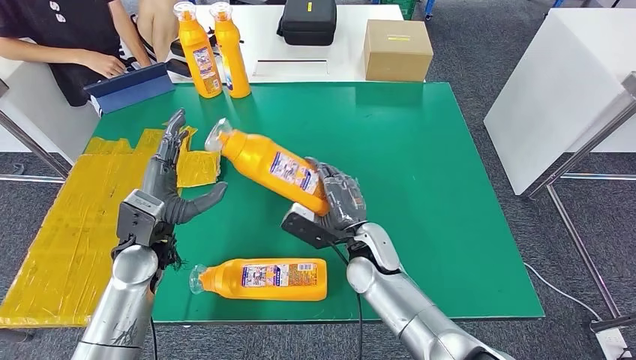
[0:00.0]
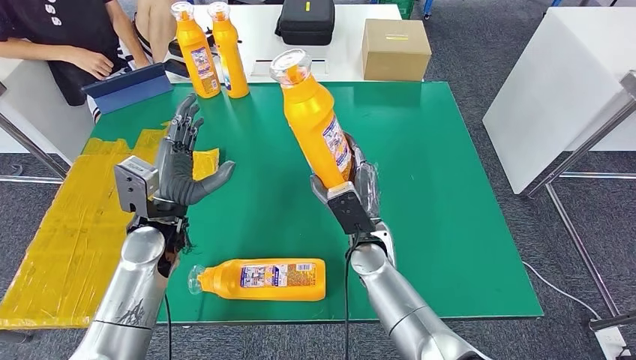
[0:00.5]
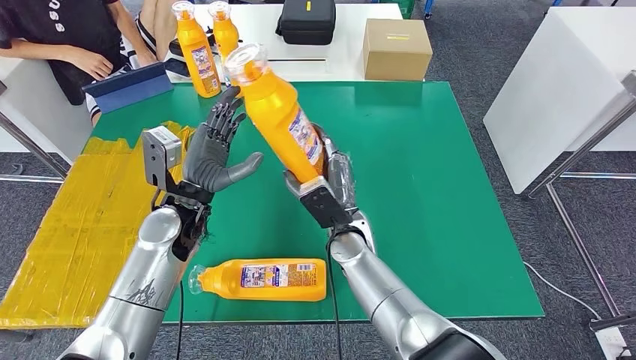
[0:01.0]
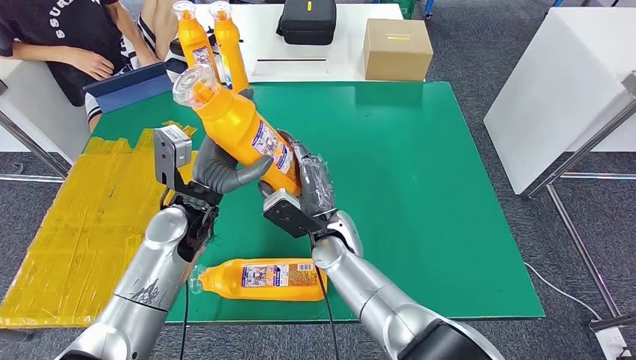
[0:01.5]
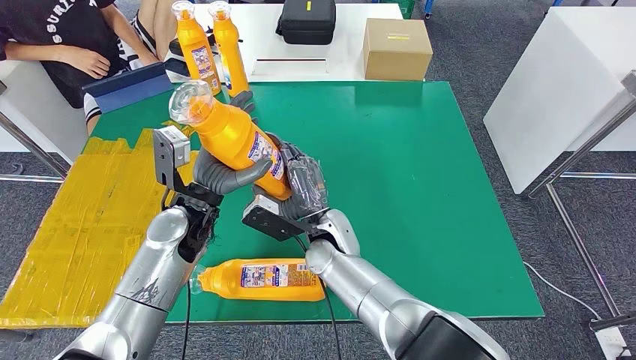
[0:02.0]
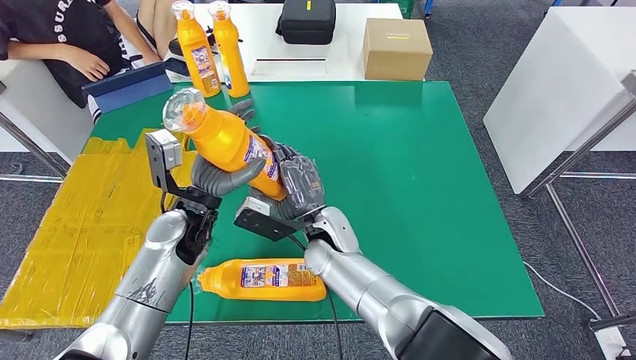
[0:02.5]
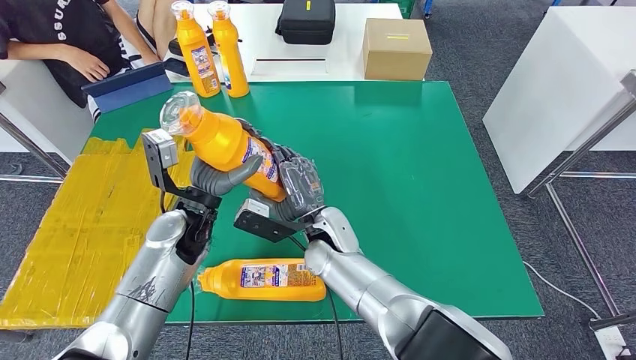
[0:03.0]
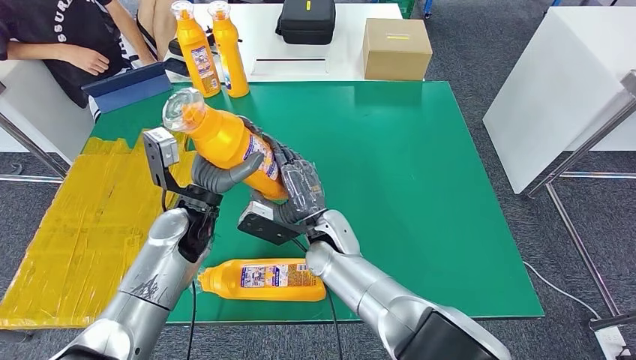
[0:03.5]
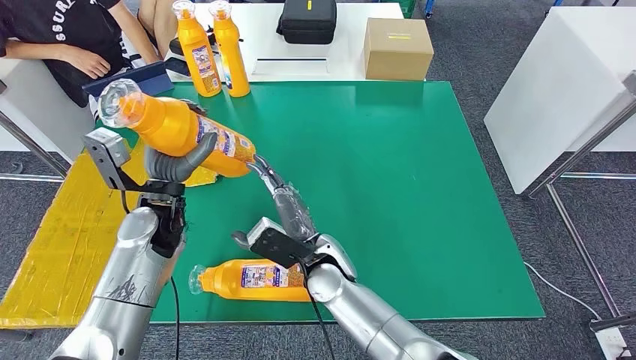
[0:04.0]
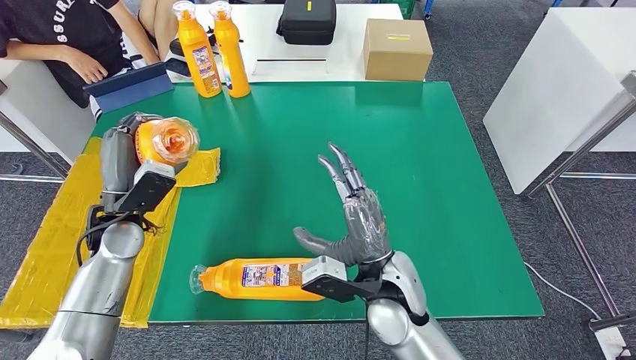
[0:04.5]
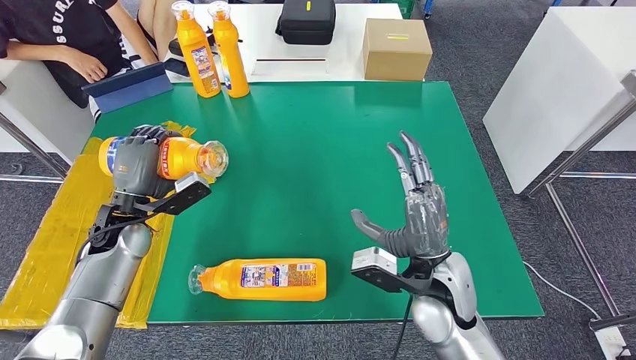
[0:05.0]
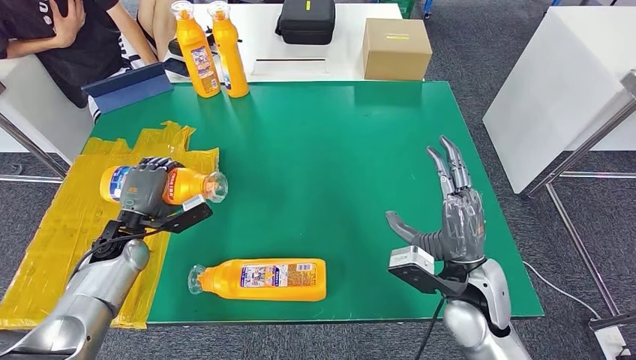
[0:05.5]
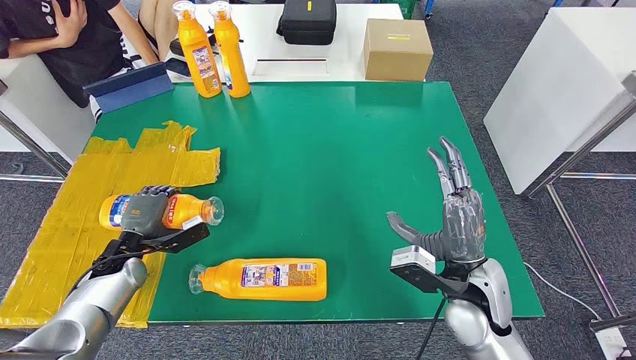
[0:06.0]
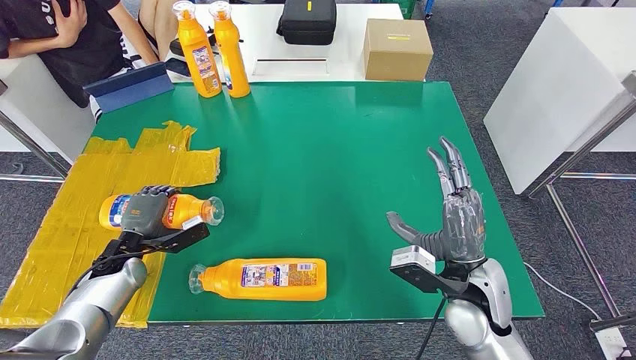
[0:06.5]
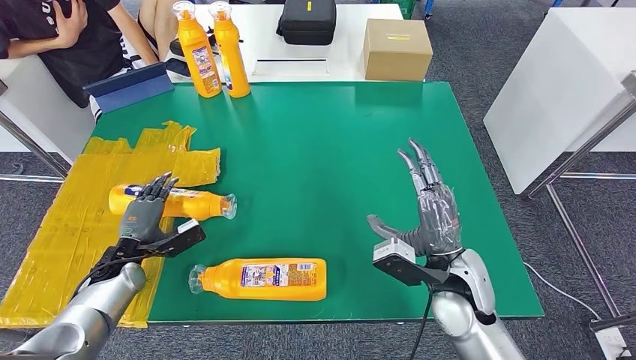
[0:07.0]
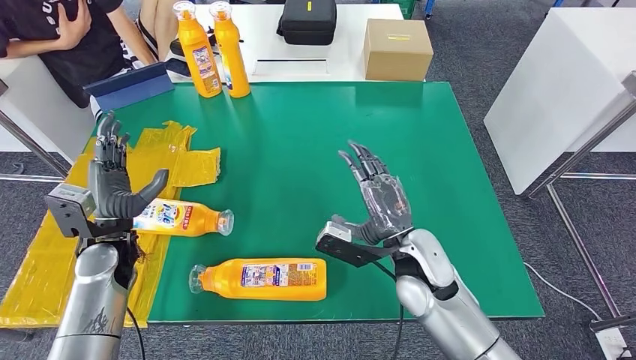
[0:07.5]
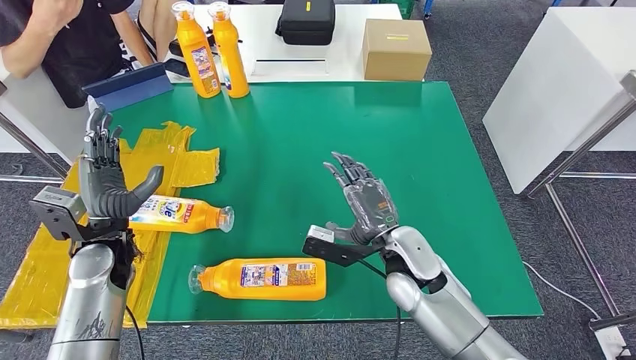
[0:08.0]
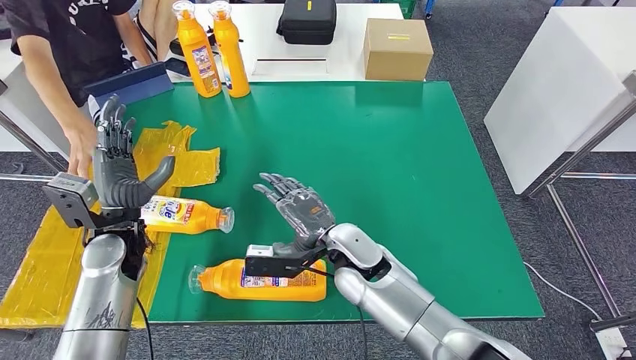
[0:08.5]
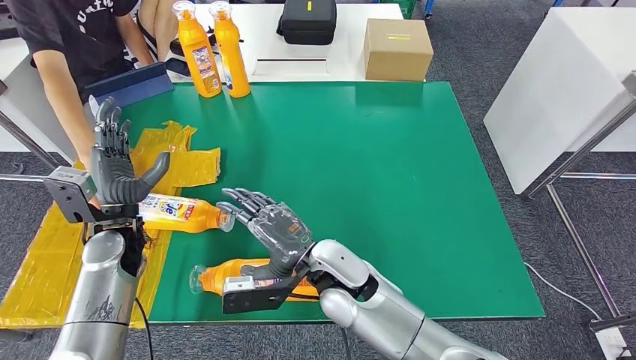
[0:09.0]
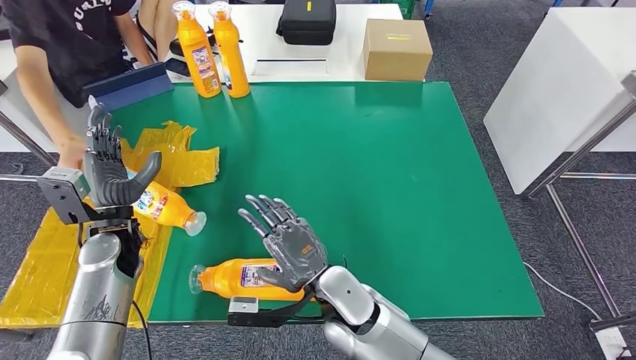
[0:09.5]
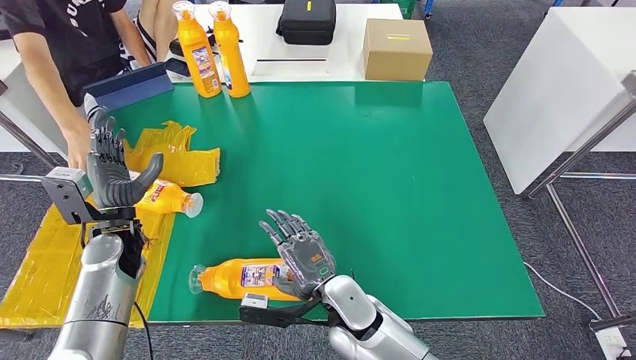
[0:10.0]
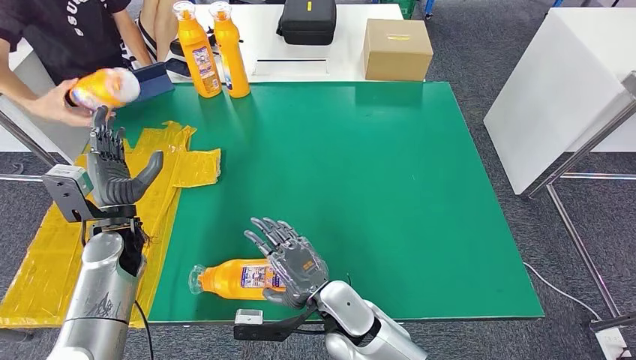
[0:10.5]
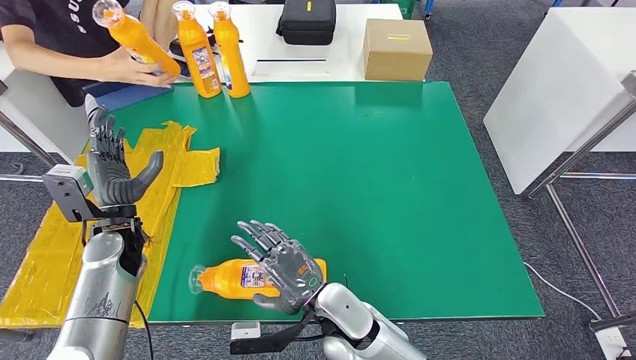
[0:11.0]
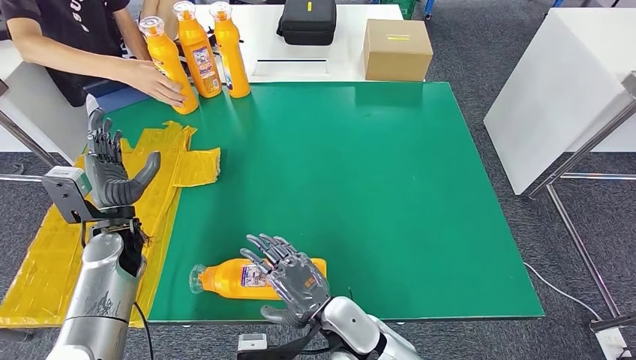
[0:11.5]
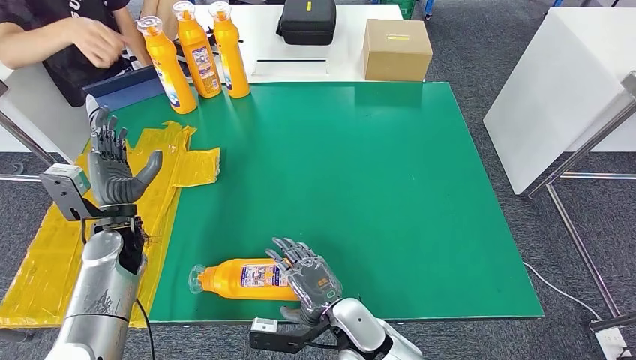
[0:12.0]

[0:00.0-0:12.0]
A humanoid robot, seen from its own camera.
Step, 0:00.0 to 0:02.5: Pick up the bottle from the table.
Step, 0:03.0 to 0:08.0: Flip the bottle to face forward.
0:10.0 to 0:12.0: The hands stay close to where they were, moving slightly.

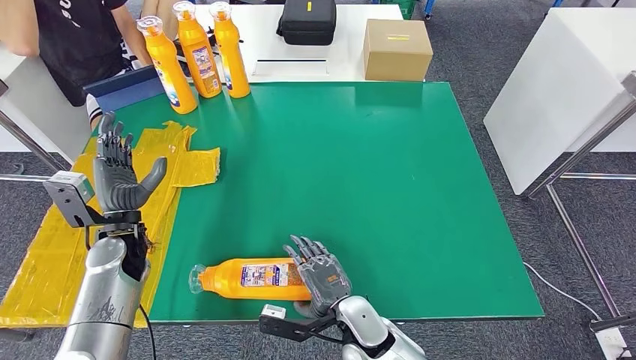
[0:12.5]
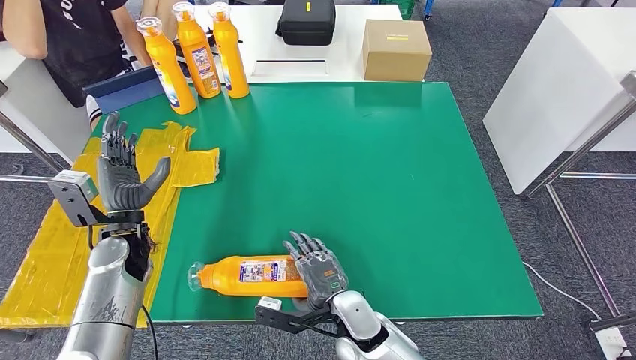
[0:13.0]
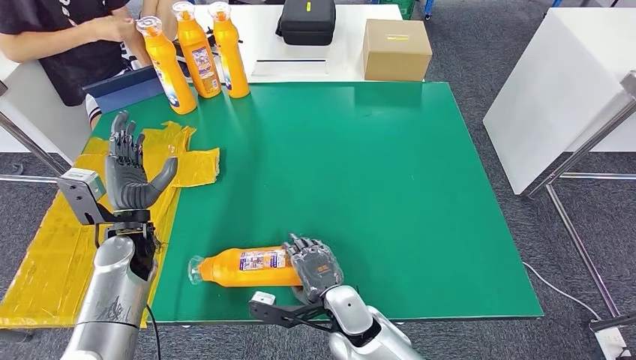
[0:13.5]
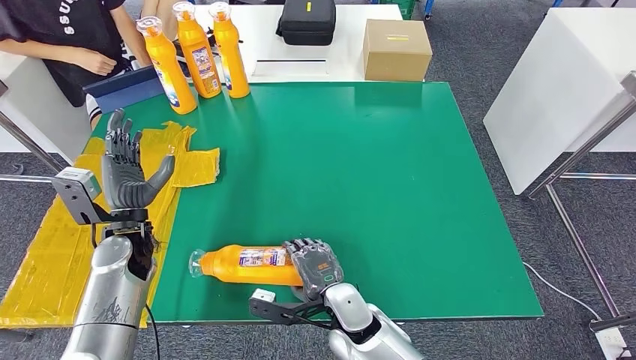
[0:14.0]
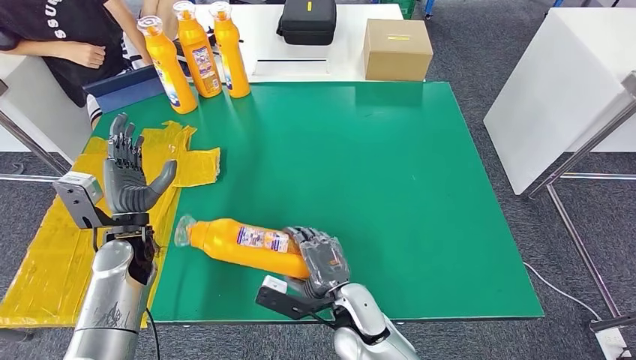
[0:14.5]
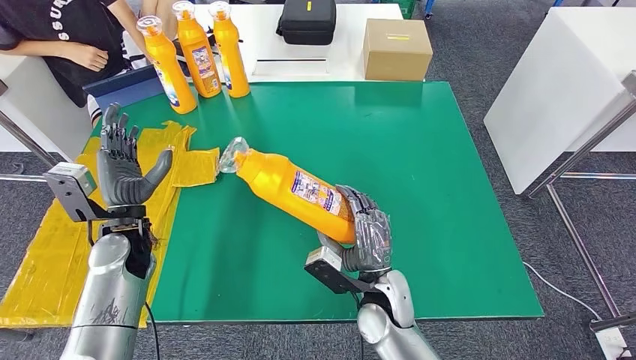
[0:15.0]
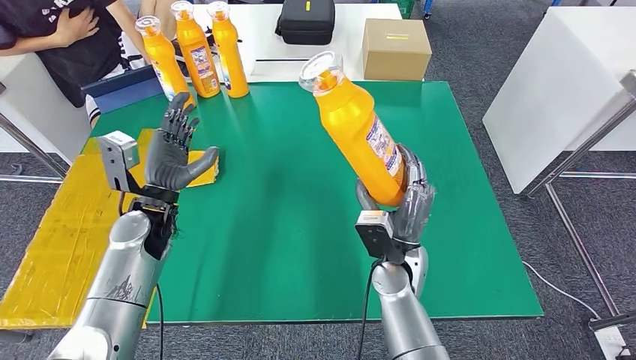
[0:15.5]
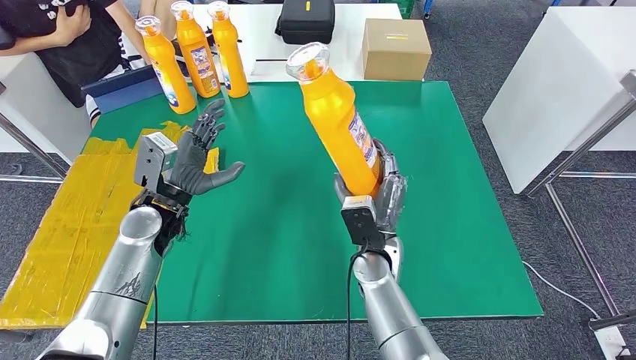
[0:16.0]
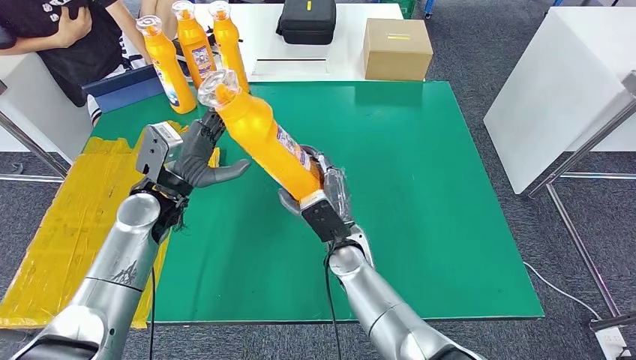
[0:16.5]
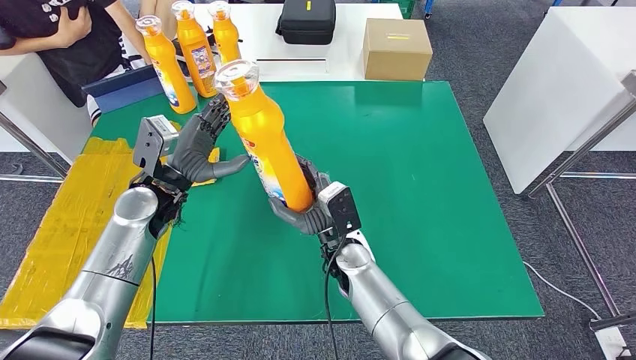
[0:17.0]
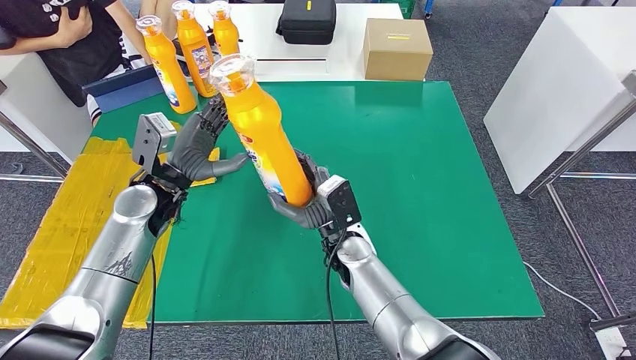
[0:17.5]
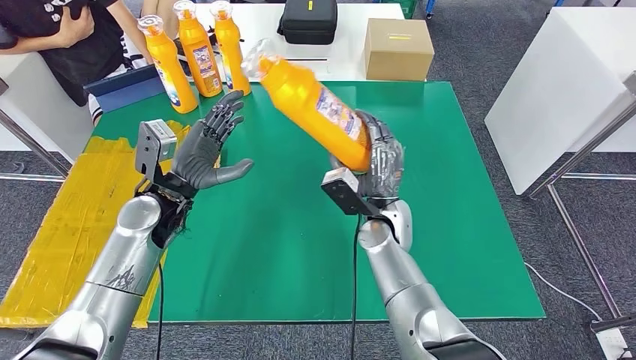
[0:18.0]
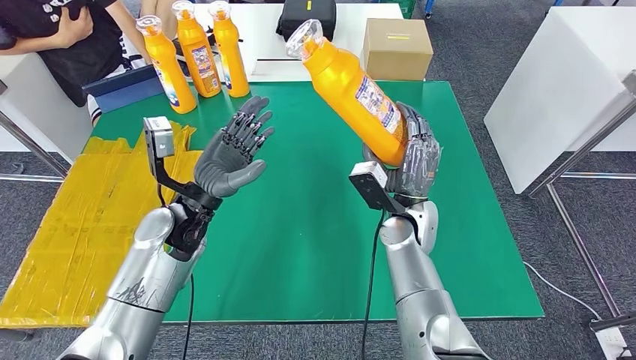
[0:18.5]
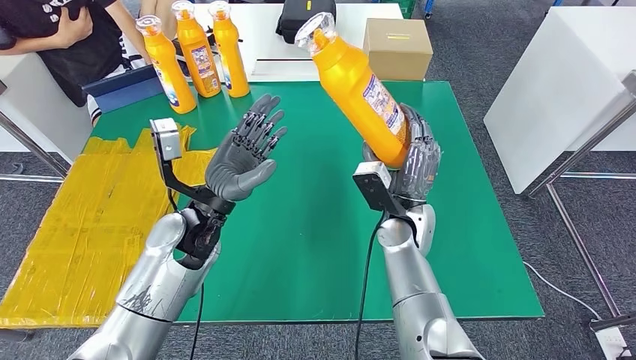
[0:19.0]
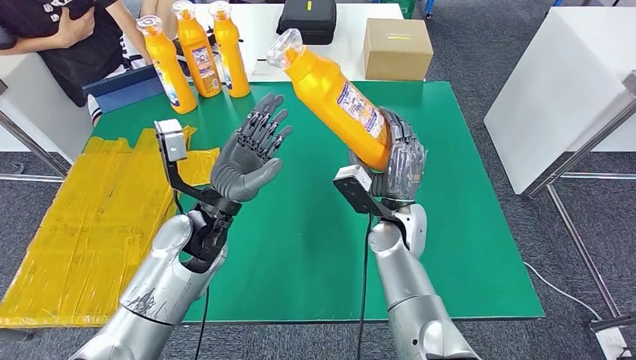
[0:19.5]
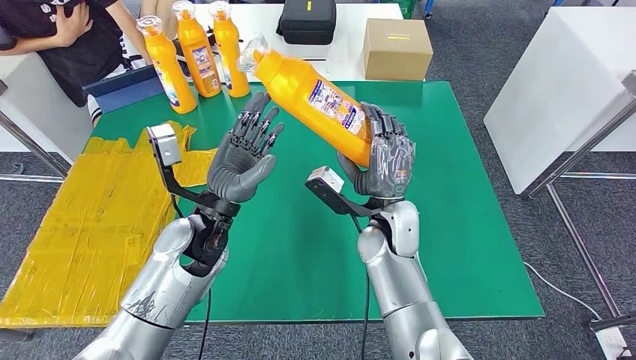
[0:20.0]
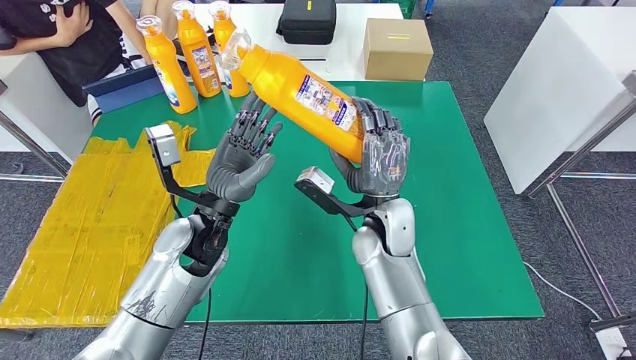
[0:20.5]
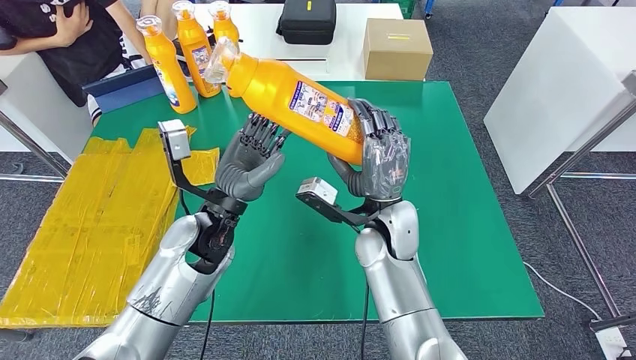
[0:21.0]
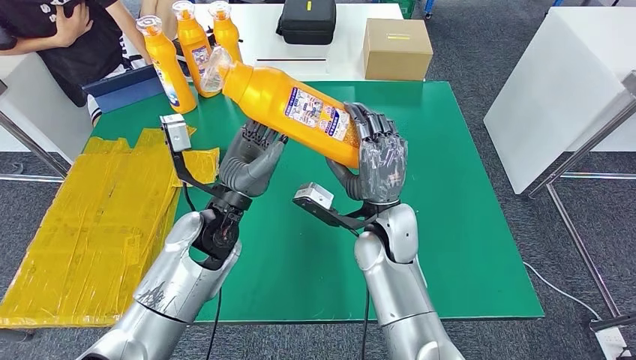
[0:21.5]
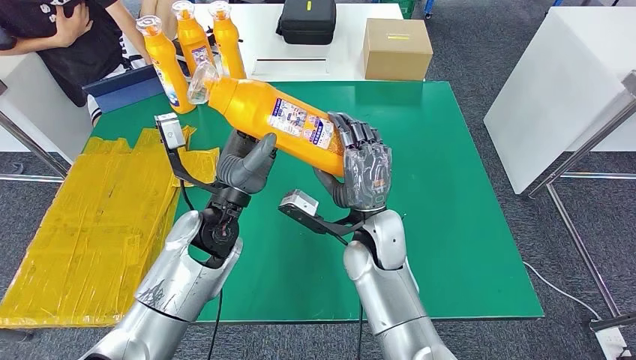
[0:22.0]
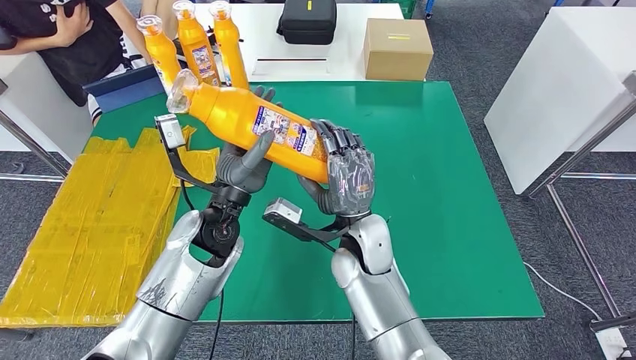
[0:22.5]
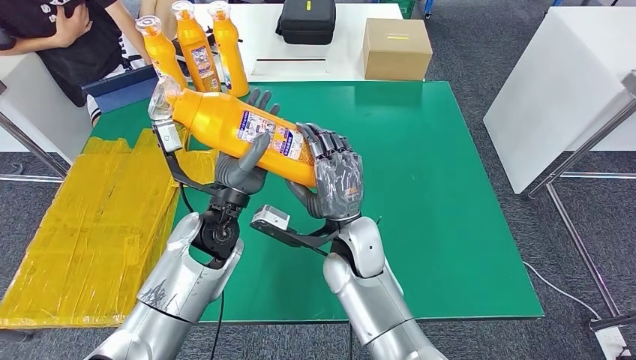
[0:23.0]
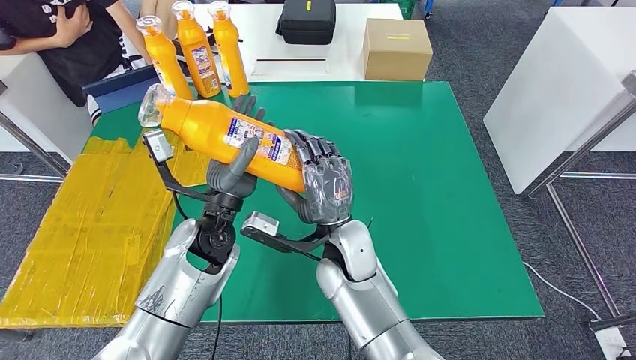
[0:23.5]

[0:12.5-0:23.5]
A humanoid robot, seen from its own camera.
Step, 0:12.5 to 0:18.0: Pick up the bottle from the table.
0:12.5 to 0:14.5: The hands make only small movements.
0:16.0 to 0:18.0: The right hand shifts by some 5 cm.
0:18.0 to 0:20.0: The left hand is displaced to the right and backward by approximately 10 cm.
0:20.0 to 0:21.5: The hands move only a little.
